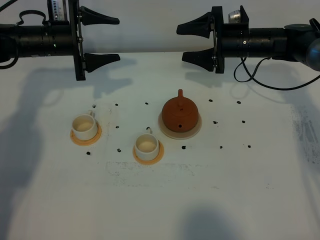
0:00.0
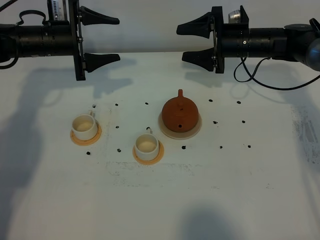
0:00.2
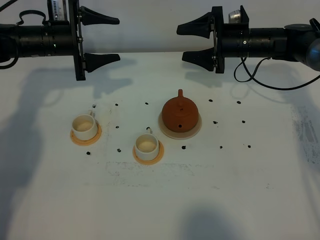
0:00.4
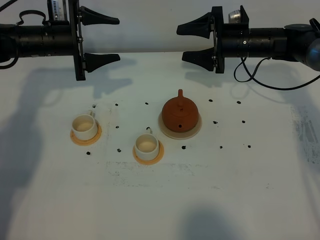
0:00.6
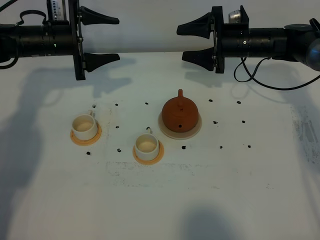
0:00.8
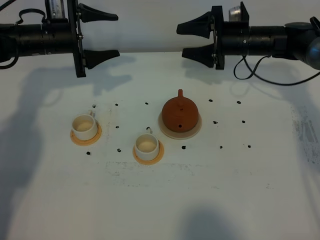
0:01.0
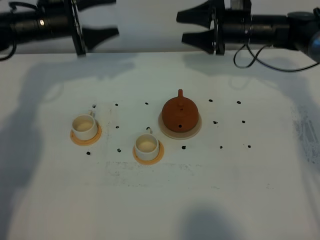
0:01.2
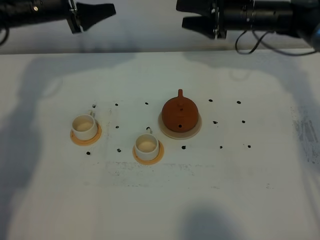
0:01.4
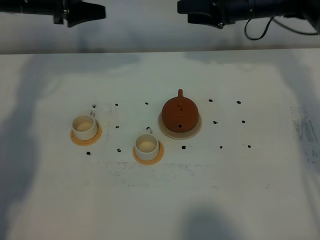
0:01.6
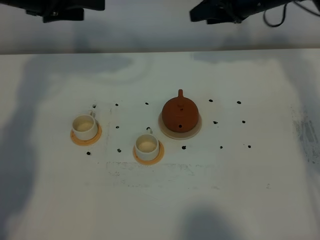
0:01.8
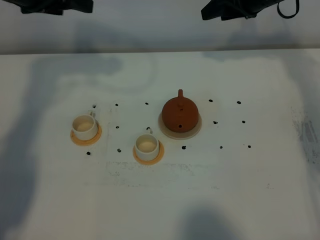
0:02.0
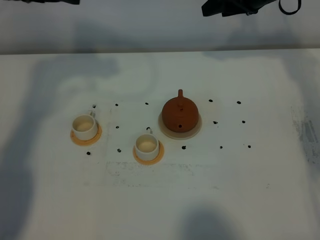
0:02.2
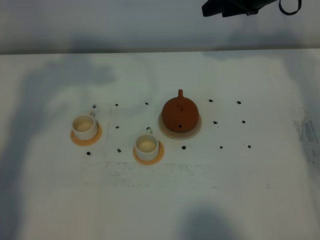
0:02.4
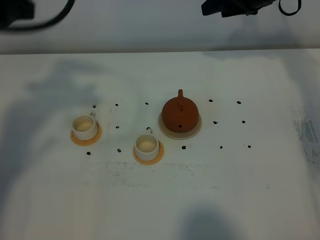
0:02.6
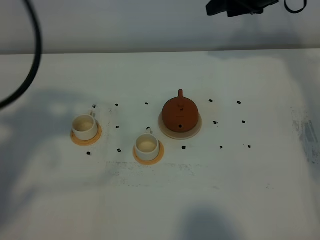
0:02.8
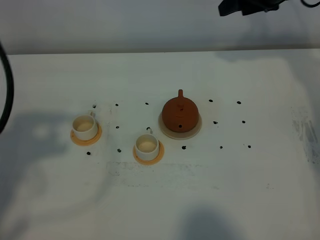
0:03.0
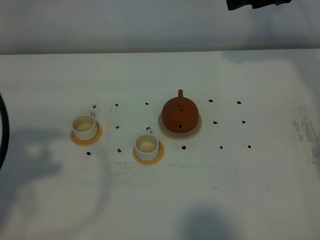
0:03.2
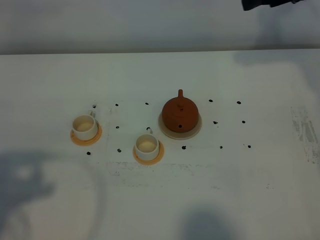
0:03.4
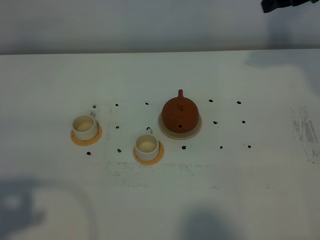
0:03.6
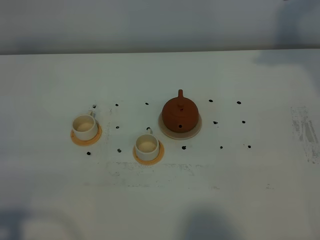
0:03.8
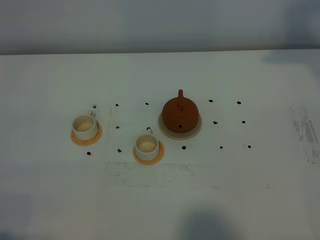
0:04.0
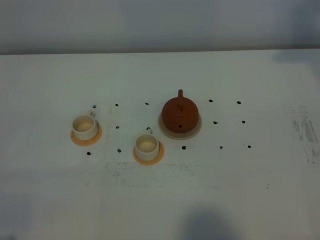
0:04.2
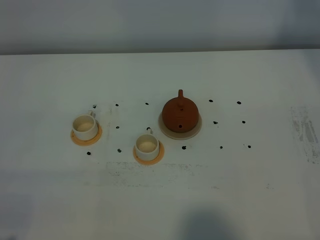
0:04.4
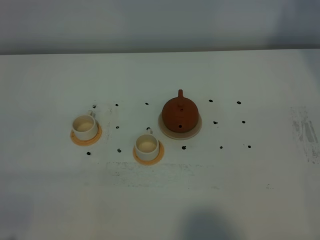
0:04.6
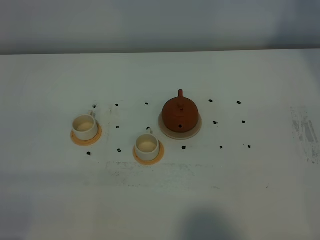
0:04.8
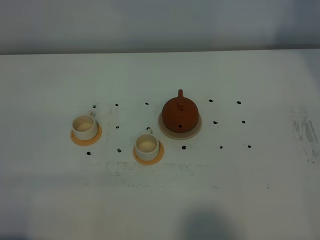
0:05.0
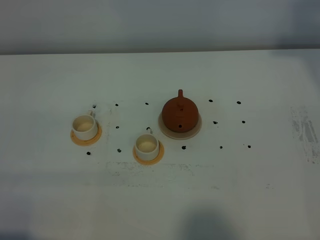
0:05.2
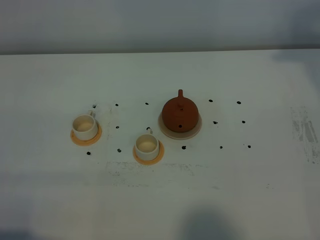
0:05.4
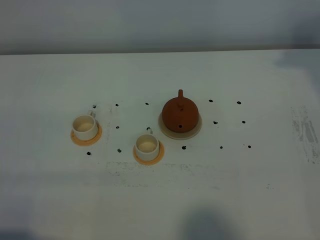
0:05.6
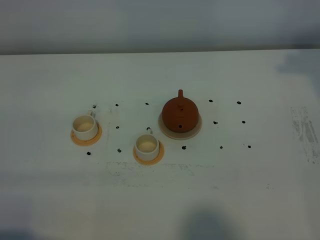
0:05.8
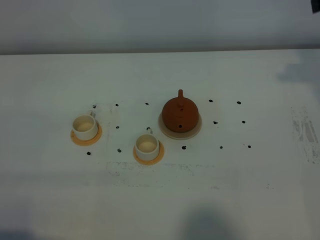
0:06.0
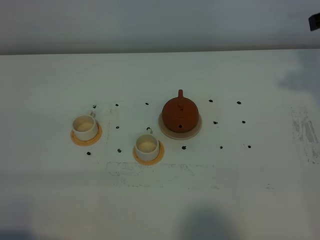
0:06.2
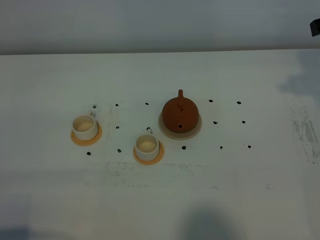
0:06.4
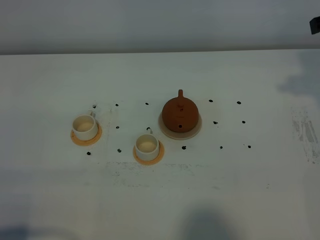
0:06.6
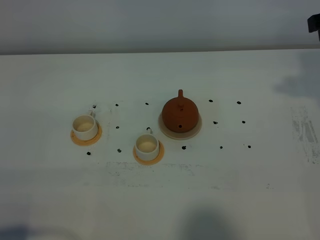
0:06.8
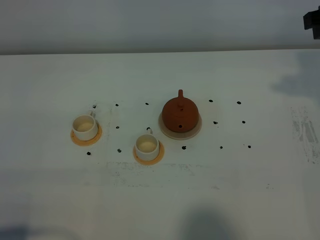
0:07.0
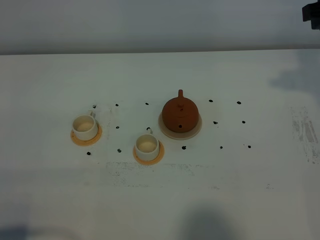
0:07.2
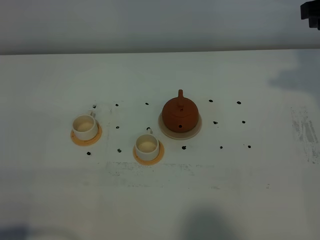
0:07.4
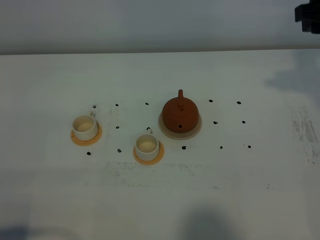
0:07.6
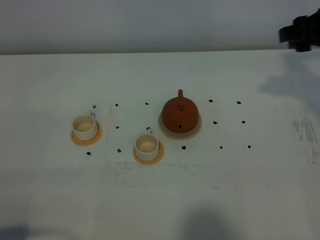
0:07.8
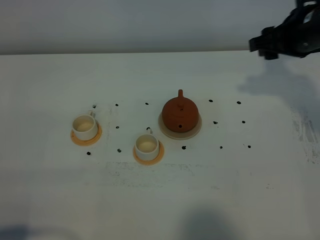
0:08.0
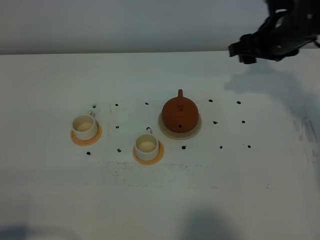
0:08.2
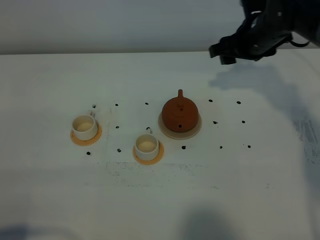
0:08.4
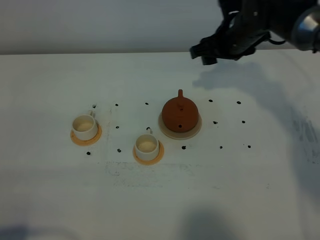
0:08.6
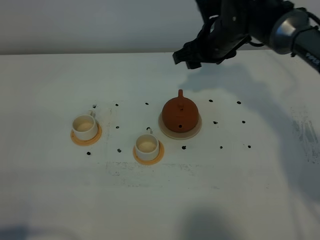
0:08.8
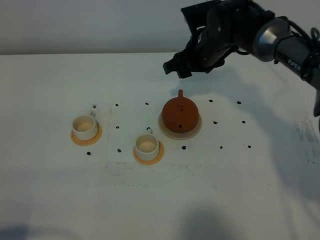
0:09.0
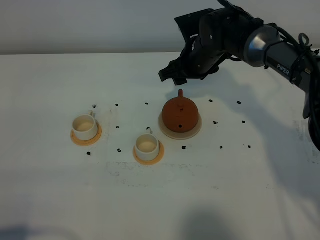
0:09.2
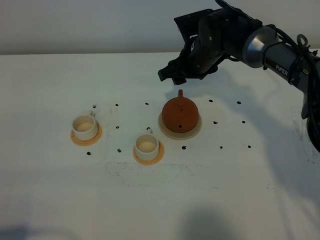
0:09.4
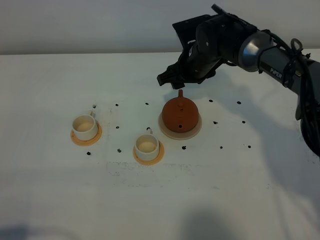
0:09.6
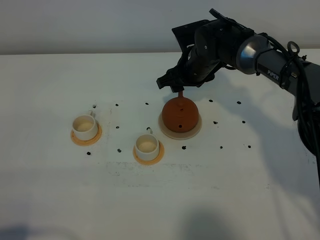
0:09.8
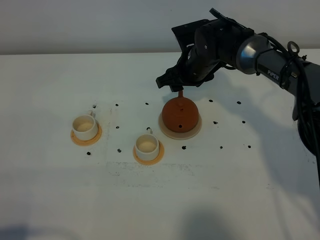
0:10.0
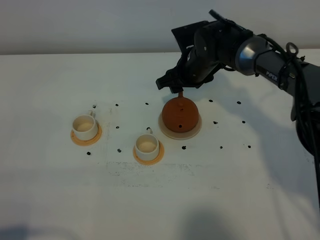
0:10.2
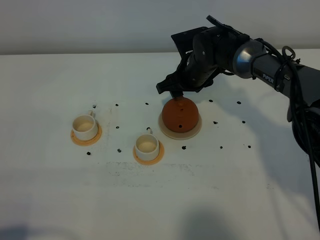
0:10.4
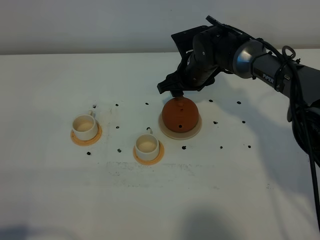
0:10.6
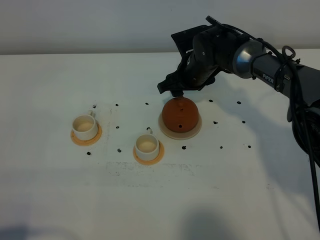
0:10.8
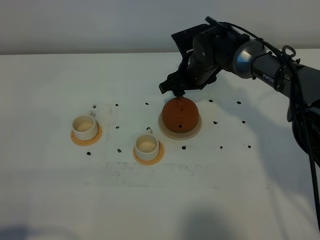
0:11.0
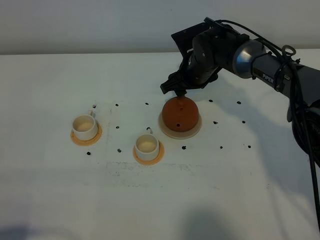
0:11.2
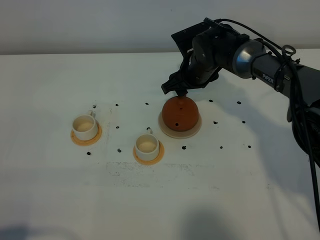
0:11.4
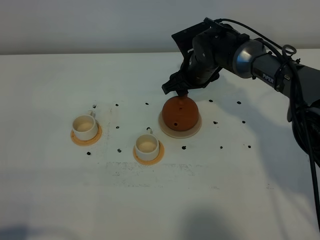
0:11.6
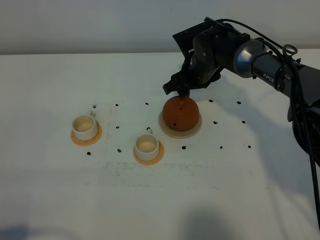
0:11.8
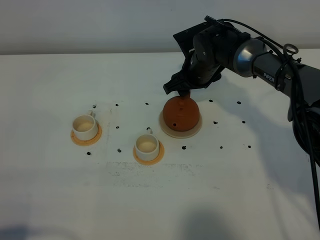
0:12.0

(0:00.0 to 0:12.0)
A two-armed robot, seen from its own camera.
Task of the whole recording: grasp the brown teapot and pour the tea into the two white teacups one by one, put the brown teapot back in its original place.
0:00.0 - 0:01.6: Both grippers travel together upward, some 10 cm.
0:01.6 - 0:03.0: The right gripper moves upward, approximately 5 cm. Meanwhile the left gripper moves backward, approximately 30 cm.
0:03.0 - 0:04.4: The right gripper moves upward, backward and to the right, about 15 cm. Meanwhile the left gripper shifts some 20 cm backward and downward.
0:07.6 - 0:09.0: The right gripper is displaced to the left, downward and forward by approximately 25 cm.
0:09.0 - 0:10.4: The right gripper travels downward by roughly 5 cm.
0:10.4 - 0:12.0: The grippers make only small movements.

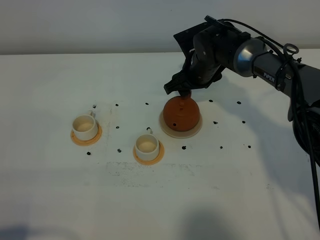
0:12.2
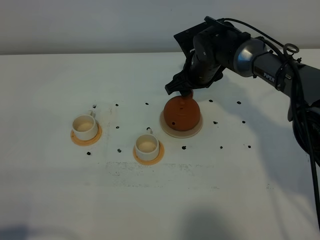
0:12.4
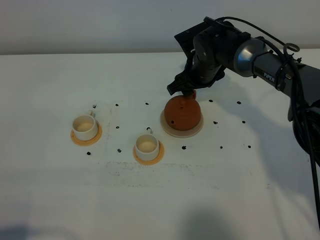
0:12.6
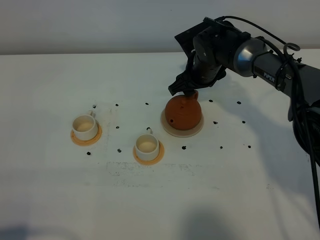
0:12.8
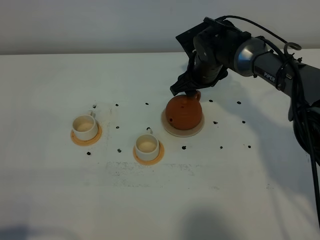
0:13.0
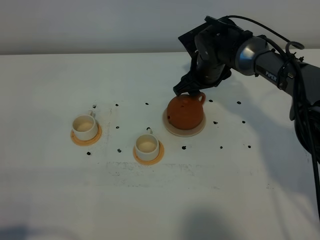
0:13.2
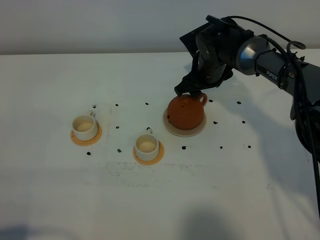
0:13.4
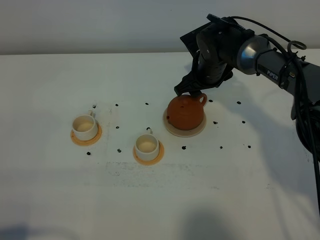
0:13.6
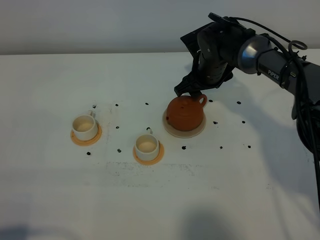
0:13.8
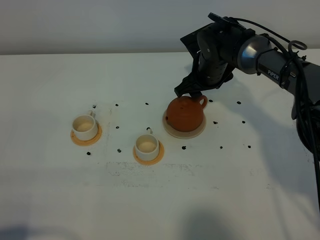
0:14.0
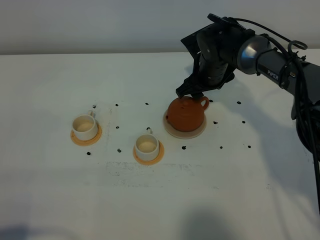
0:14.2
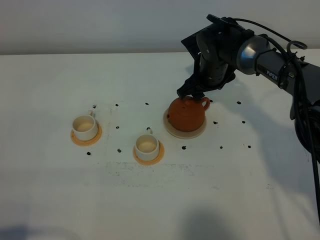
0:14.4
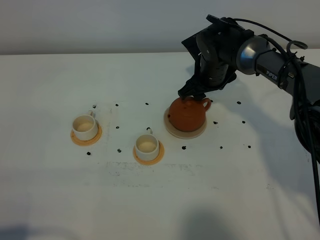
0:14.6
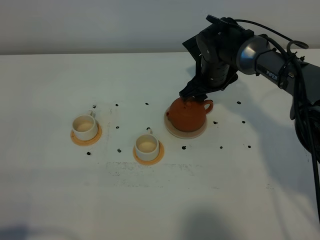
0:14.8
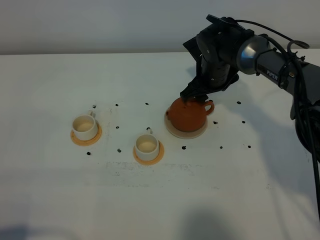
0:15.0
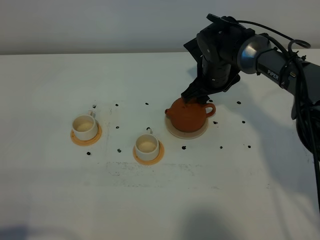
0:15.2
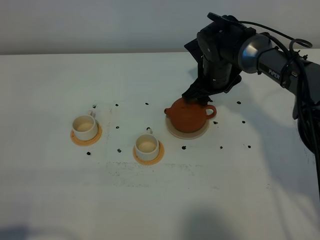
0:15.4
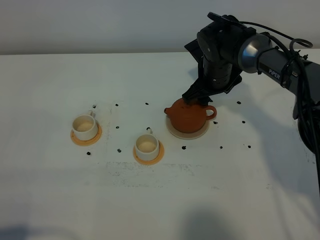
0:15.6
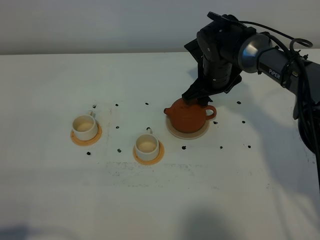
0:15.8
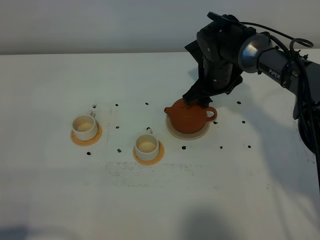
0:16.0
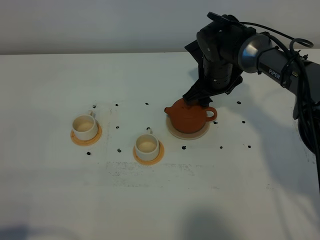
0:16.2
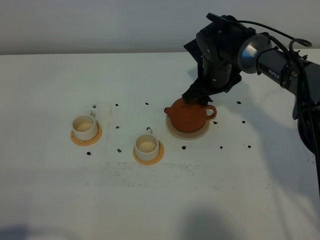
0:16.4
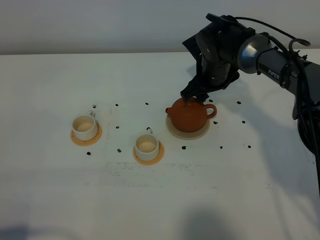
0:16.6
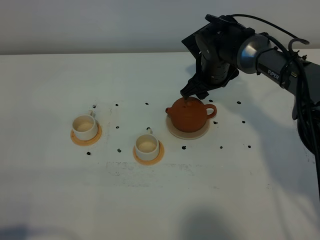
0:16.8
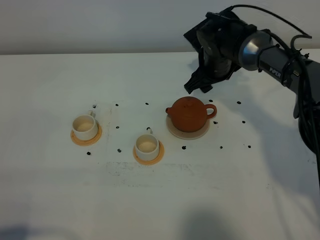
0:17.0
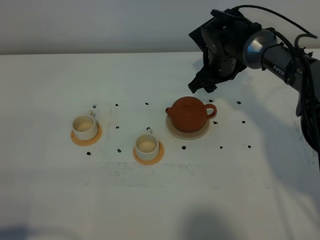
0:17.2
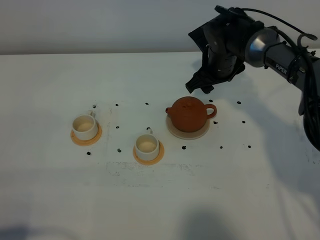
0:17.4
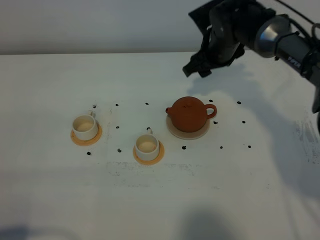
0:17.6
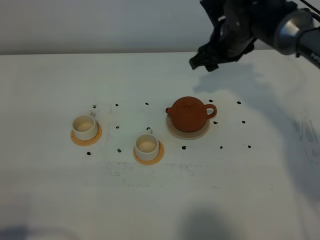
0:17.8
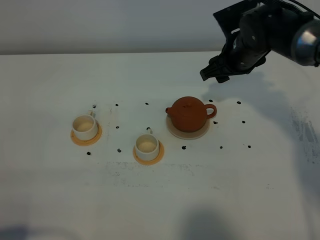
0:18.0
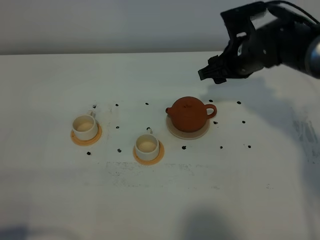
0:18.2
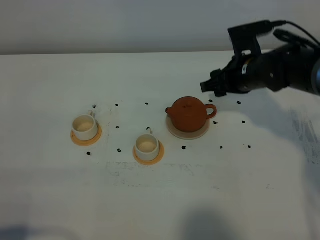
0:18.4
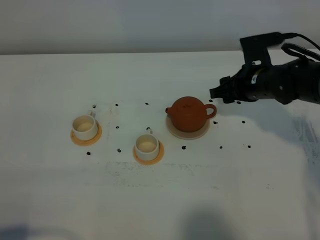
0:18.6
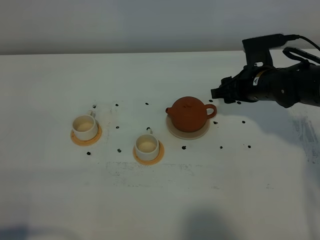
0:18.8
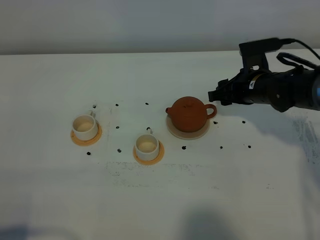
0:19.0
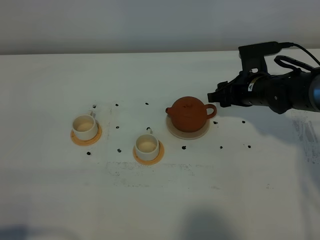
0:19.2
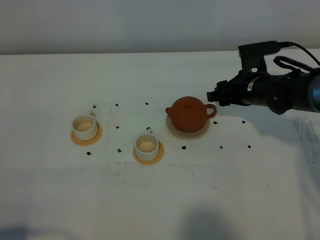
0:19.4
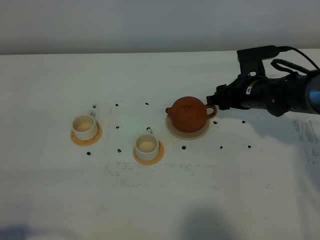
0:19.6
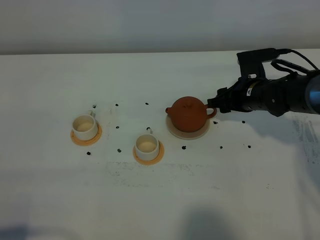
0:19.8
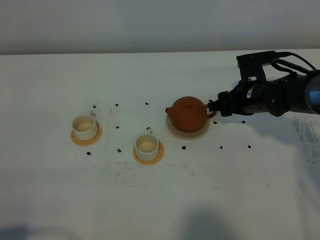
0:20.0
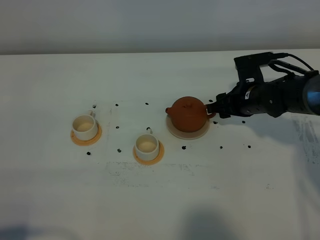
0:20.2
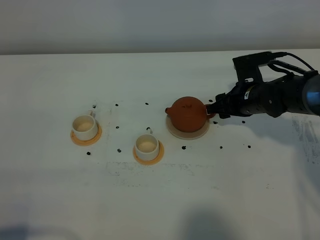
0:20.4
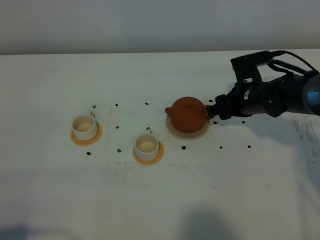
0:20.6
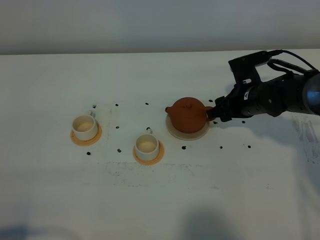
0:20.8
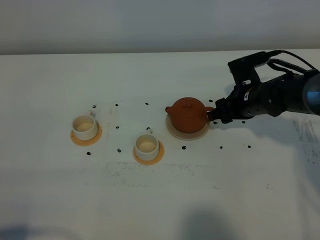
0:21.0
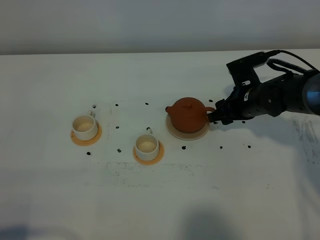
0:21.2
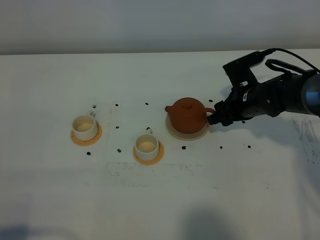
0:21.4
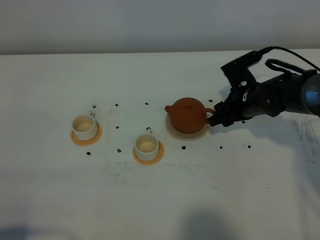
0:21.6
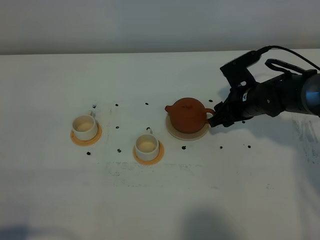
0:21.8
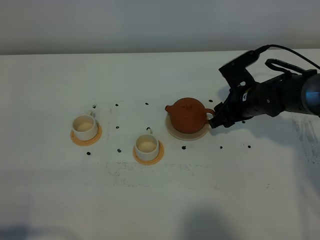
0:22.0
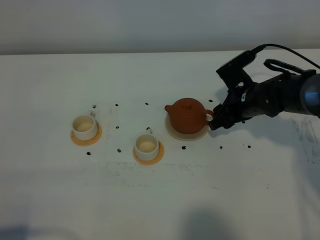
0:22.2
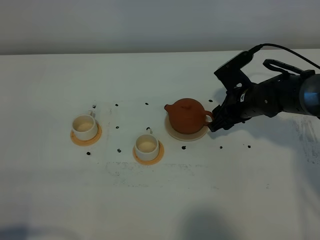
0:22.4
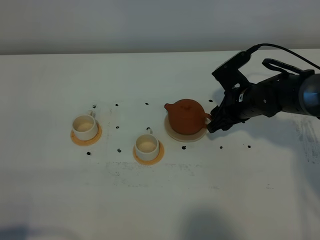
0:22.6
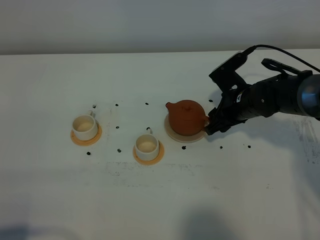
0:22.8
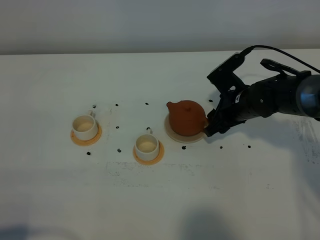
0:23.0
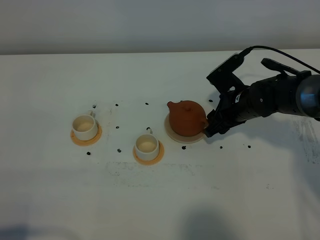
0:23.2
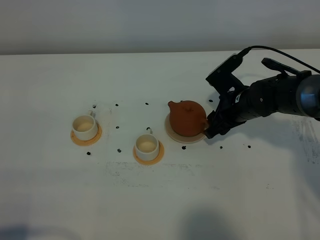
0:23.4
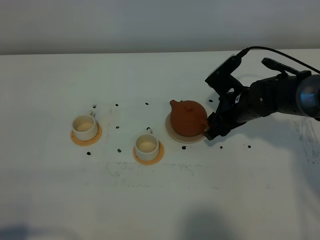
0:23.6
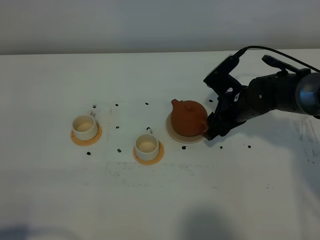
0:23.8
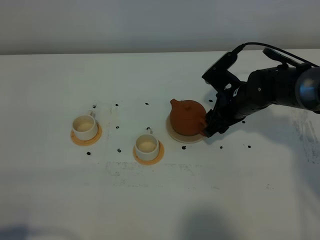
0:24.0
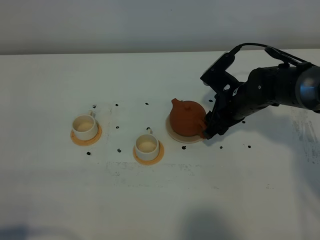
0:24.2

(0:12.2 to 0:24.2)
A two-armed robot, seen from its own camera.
Task of the whole recording: grasp the brown teapot and pour the tea into the two white teacups one by one, put the brown teapot back in its original place.
0:12.2 - 0:15.2: The grippers make only small movements.
0:15.2 - 0:16.6: Both grippers stay about where they are.
0:16.6 - 0:18.2: The right gripper is displaced to the right by some 5 cm.
0:18.2 - 0:19.8: The right gripper goes about 10 cm downward.
0:19.8 - 0:21.2: The grippers stay close to where they were, moving slightly.
0:21.2 - 0:22.6: The grippers stay close to where they were, moving slightly.
0:22.6 - 0:24.2: The grippers make only small movements.
